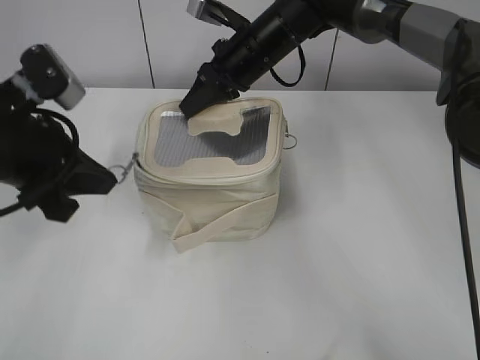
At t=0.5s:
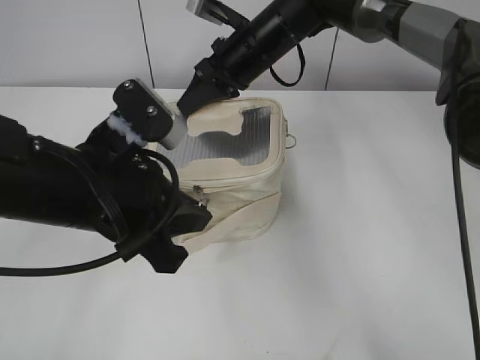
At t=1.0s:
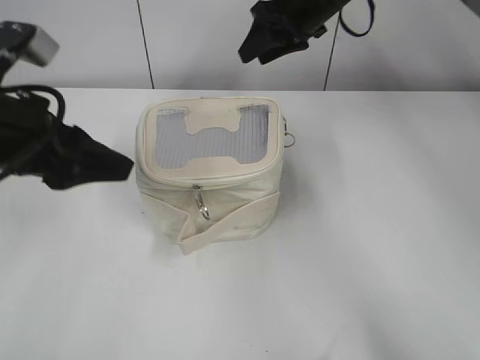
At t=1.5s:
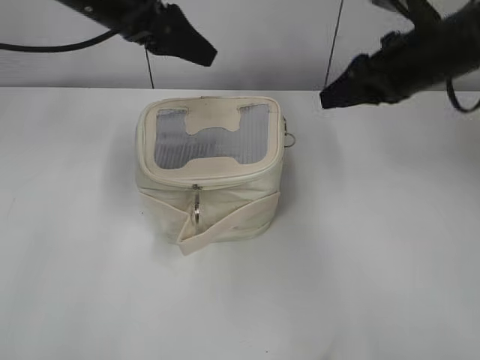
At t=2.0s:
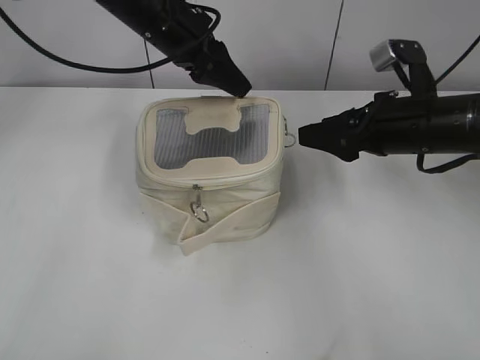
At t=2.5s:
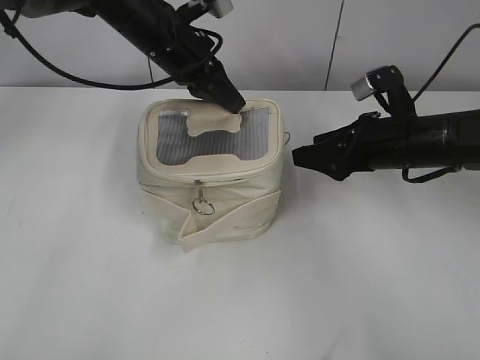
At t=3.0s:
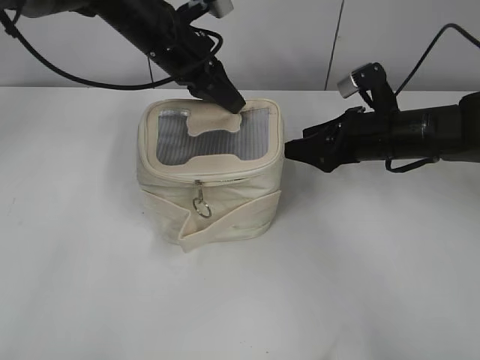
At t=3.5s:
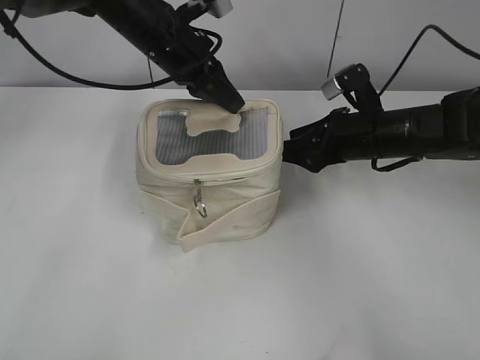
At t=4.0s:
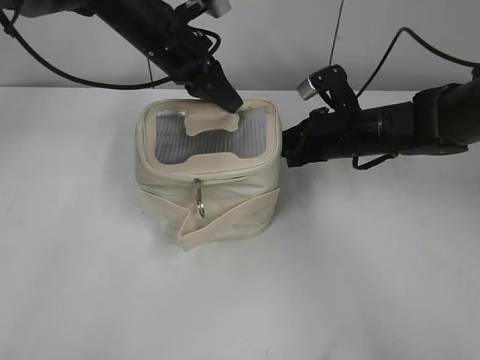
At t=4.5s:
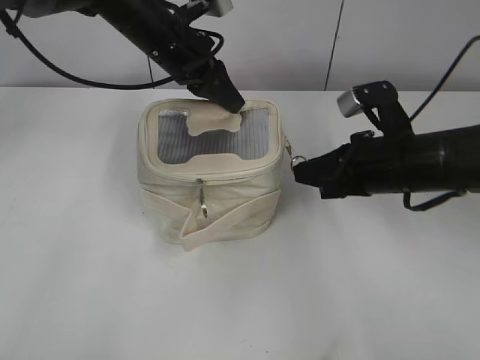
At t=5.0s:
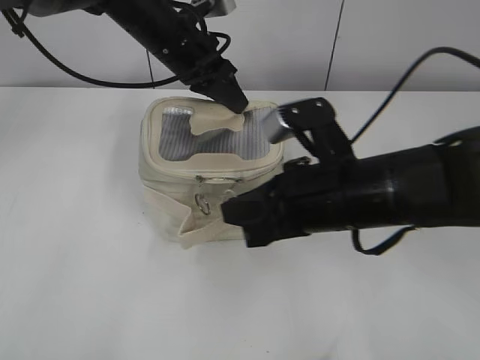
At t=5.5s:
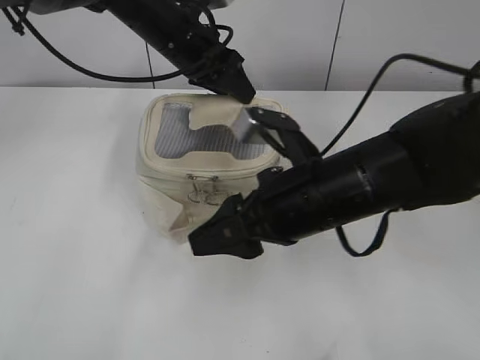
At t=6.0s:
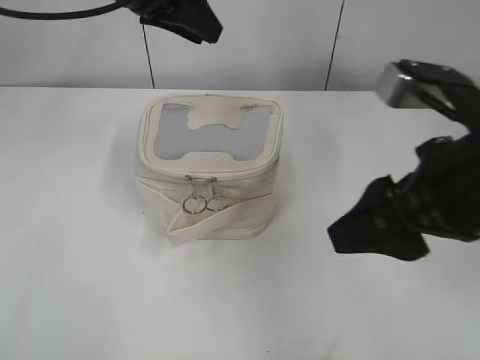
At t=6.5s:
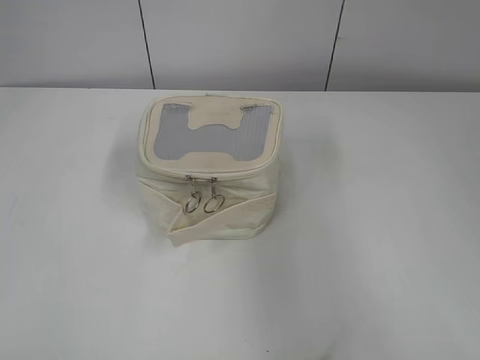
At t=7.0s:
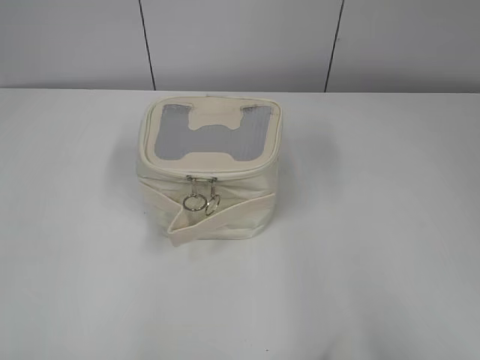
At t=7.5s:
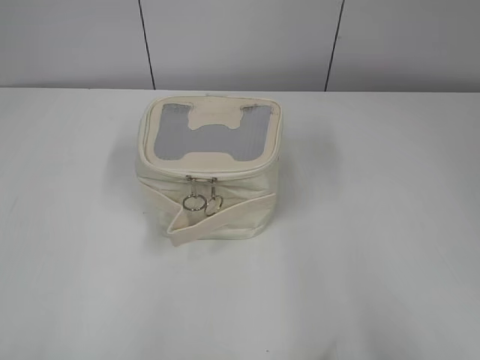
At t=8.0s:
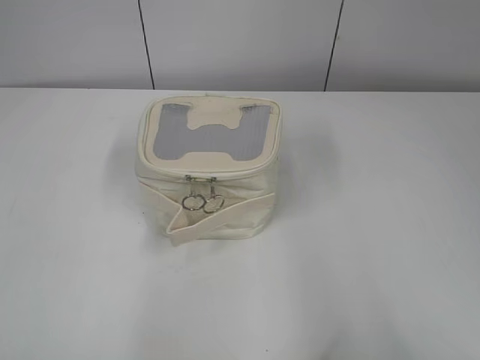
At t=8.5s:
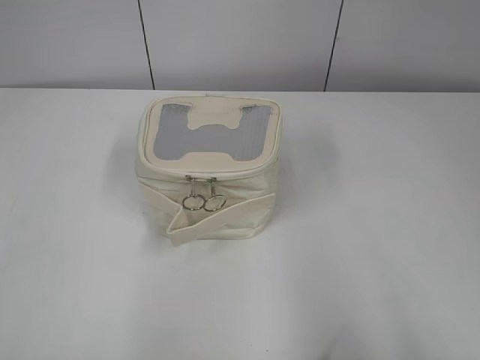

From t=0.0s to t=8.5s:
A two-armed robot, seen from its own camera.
Step, from t=1.0s to t=5.0s: Zip up the bag with your right hand.
From t=0.0s to t=2.0s: The right gripper moves to the right and backward, approximately 25 cm, and opens its fingers. The left gripper moves forward and to the right, roughly 20 cm, and opens up.
From t=2.0s to t=4.0s: The right gripper moves downward, forward and to the left, about 10 cm, and closes its fingers. The left gripper closes its fingers.
From t=4.0s to t=6.5s: The left gripper travels backward, to the left and upward by approximately 35 cm, and opens its fingers, while the right gripper goes about 35 cm backward and upward, and opens.
From t=6.5s to t=8.5s: The right gripper is displaced backward by approximately 5 cm, while the left gripper heads backward, to the left and downward, covering roughly 15 cm.

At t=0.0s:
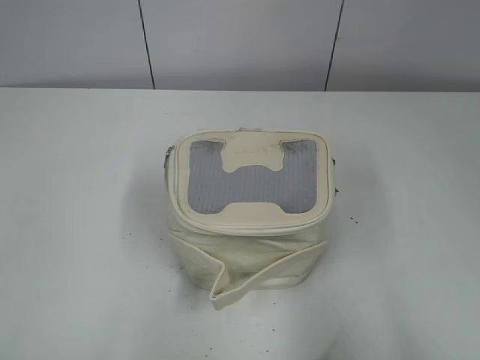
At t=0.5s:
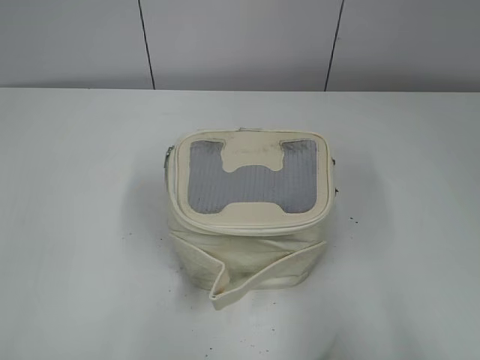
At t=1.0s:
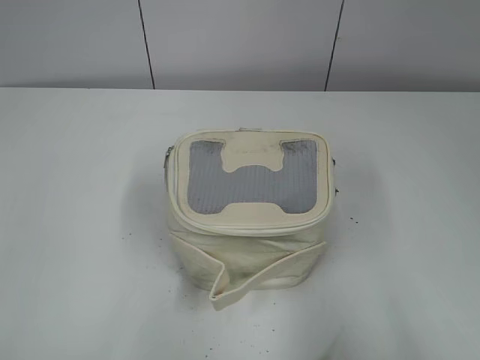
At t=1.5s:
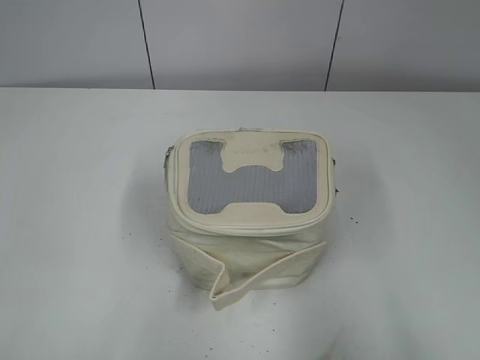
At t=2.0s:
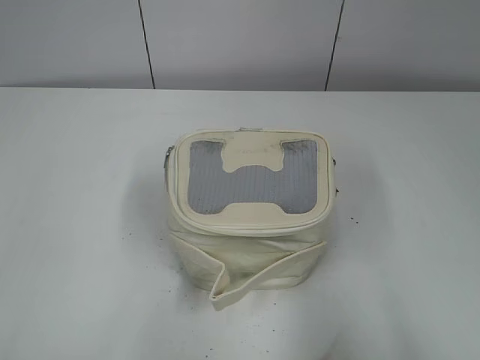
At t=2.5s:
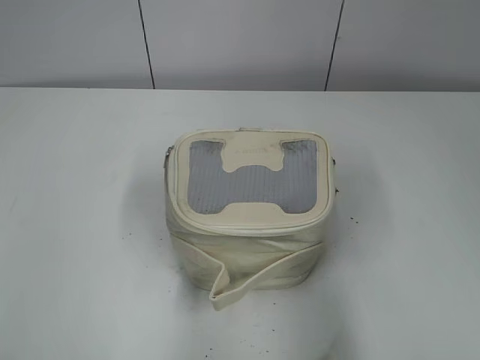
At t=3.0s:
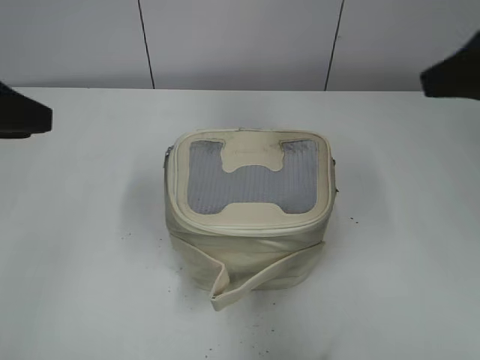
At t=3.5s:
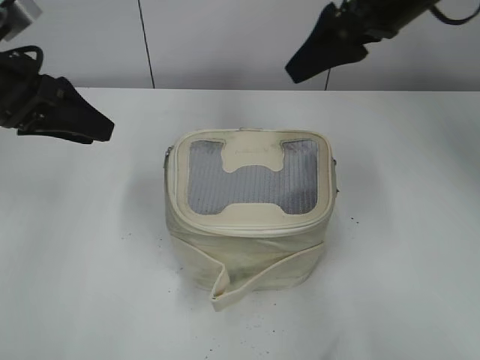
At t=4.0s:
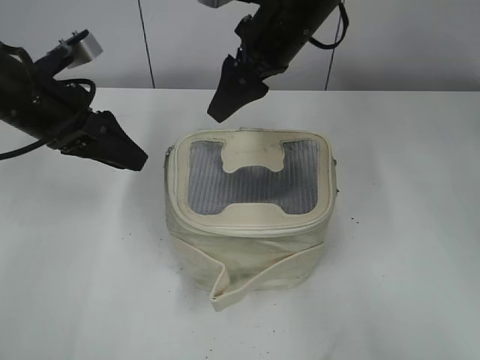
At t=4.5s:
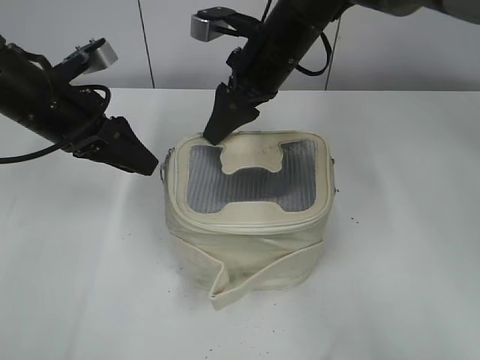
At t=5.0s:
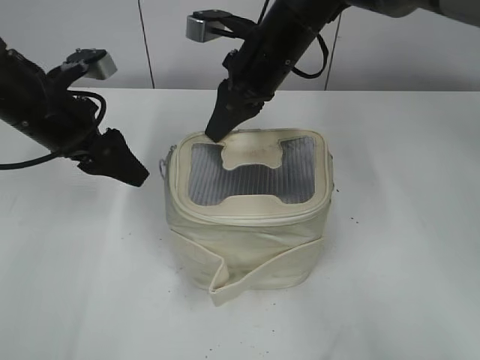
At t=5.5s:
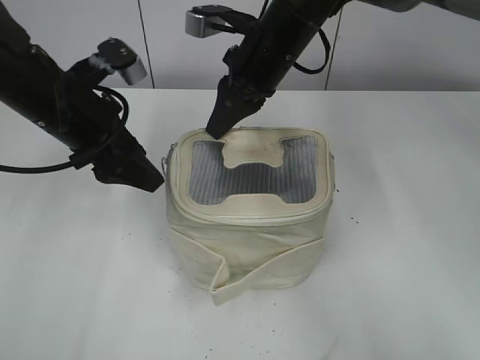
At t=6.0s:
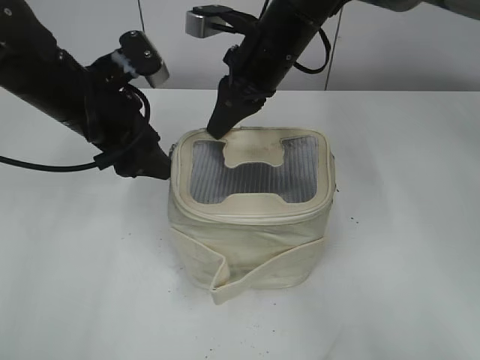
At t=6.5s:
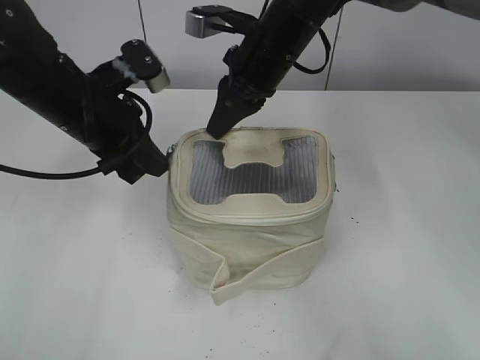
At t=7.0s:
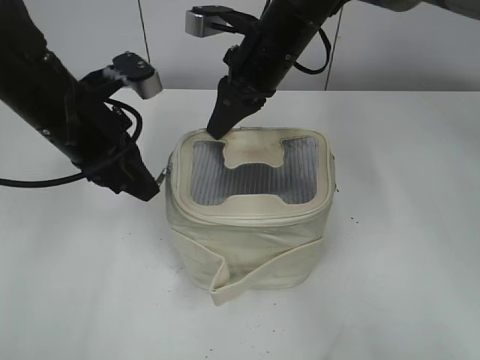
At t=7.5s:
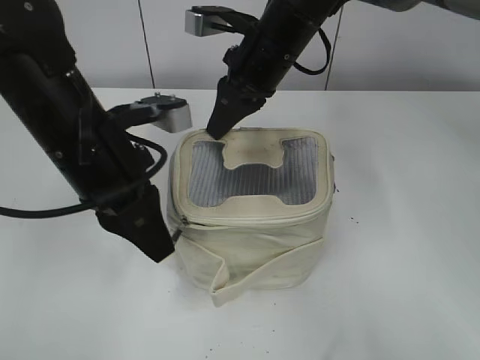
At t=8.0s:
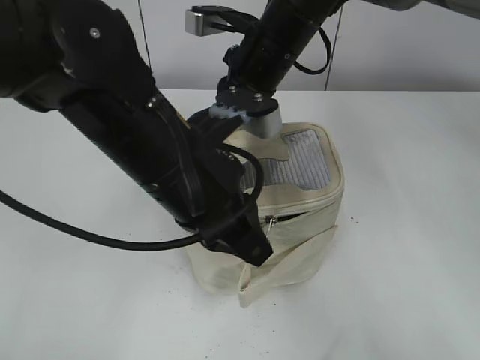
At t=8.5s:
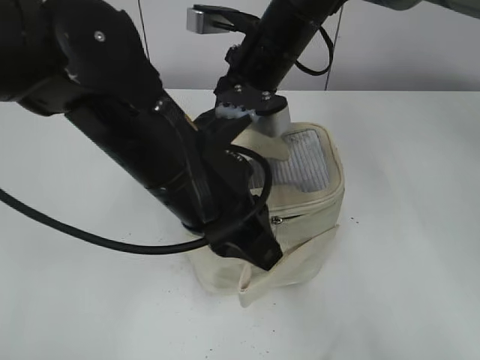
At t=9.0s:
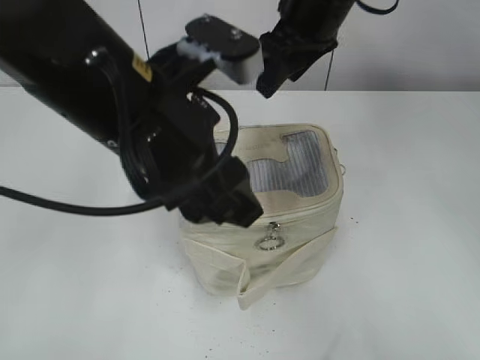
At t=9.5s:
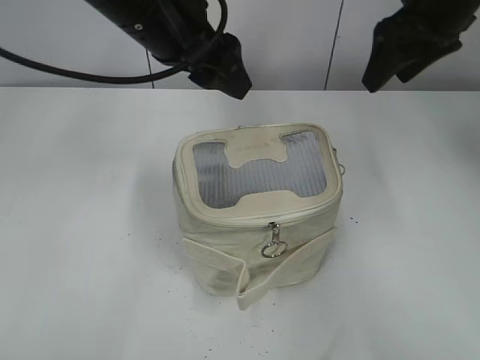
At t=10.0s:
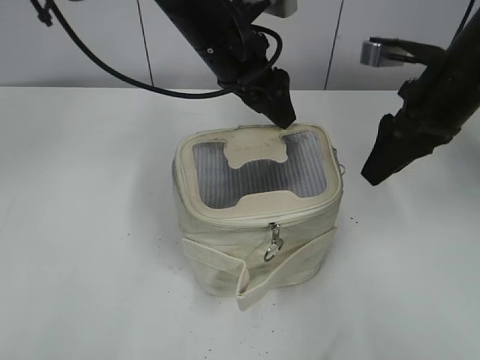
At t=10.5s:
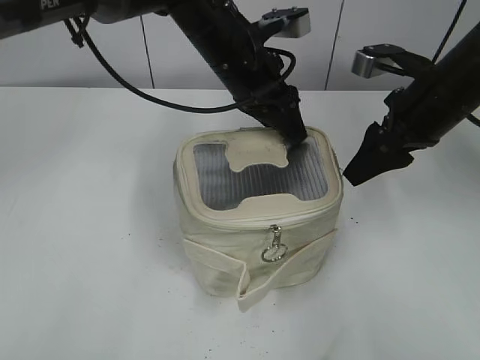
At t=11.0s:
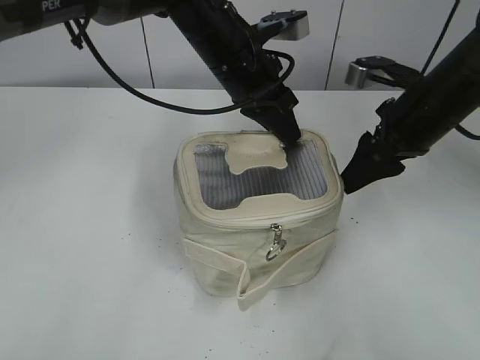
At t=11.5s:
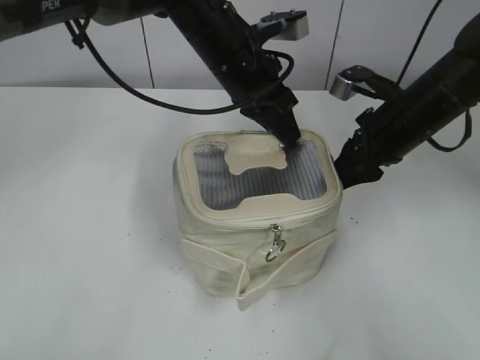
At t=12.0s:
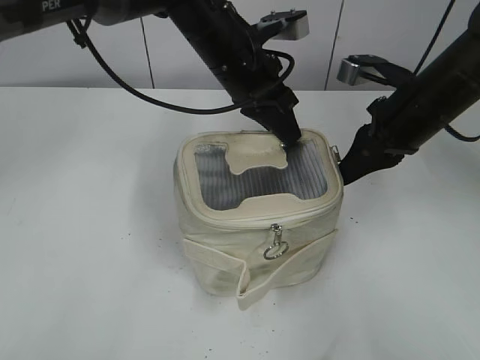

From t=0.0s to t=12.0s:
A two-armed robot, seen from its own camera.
Step, from t=0.0s to t=8.5s: Zip up the bag with your left hand.
From t=2.0s to t=4.0s: The right gripper goes some 50 cm forward and to the left. Meanwhile the left gripper is displaced forward by approximately 30 cm.
From t=4.0s to t=6.0s: The right gripper closes up; the left gripper shifts roughly 5 cm to the right.
From t=6.0s to t=8.0s: The left gripper moves backward and to the right, approximately 15 cm, and closes up.
From t=8.0s to t=10.0s: The right gripper moves to the right, roughly 15 cm, and opens, while the left gripper travels forward by some 15 cm, and opens up.
From t=10.0s to t=12.0s: The right gripper shifts some 5 cm downward, and closes. The left gripper closes its fingers.

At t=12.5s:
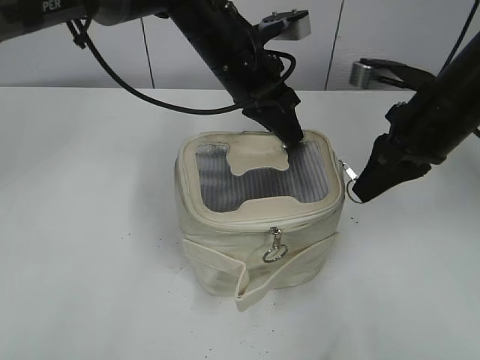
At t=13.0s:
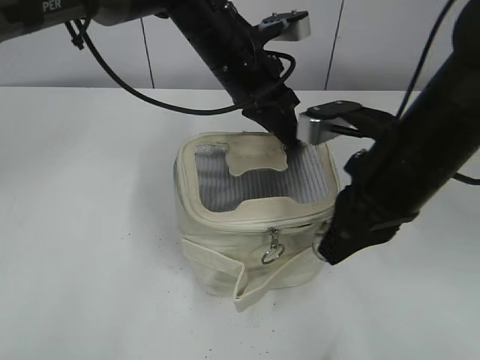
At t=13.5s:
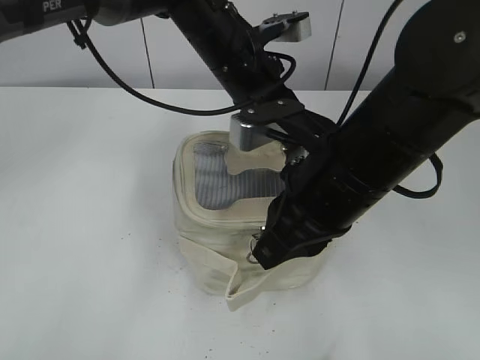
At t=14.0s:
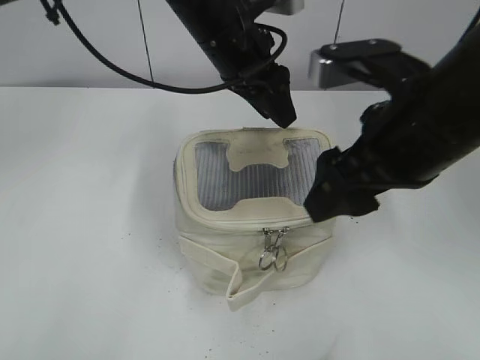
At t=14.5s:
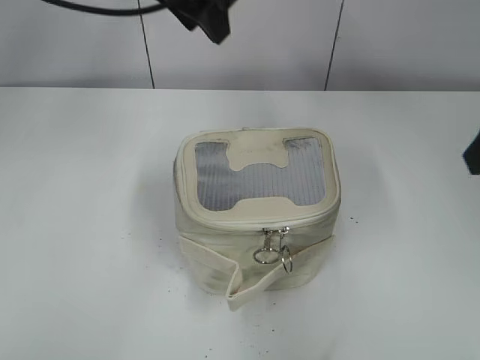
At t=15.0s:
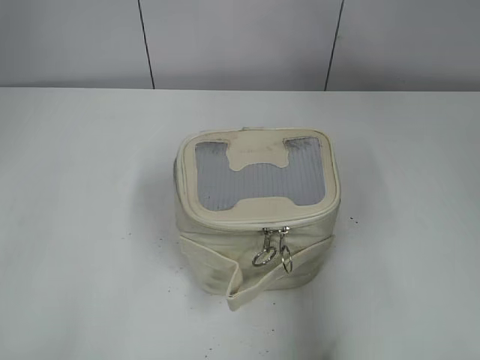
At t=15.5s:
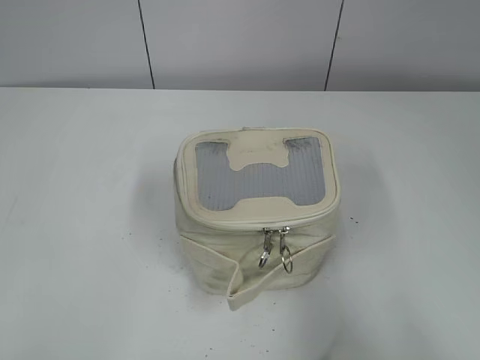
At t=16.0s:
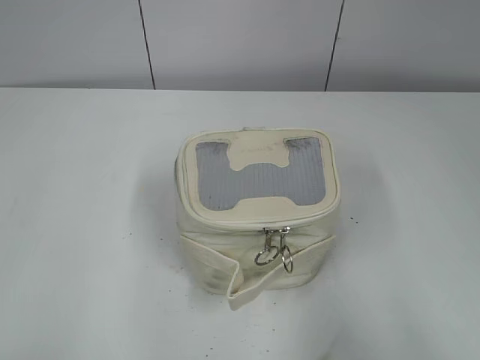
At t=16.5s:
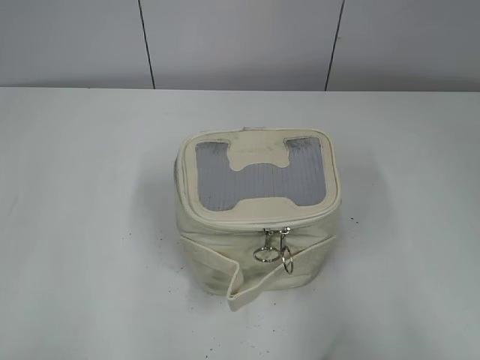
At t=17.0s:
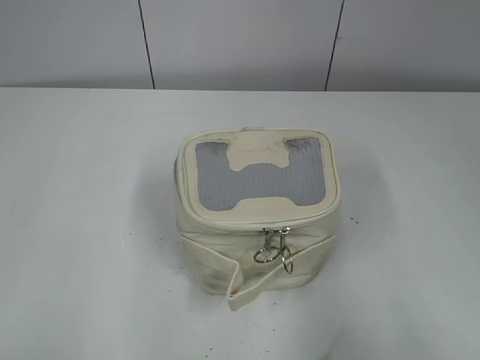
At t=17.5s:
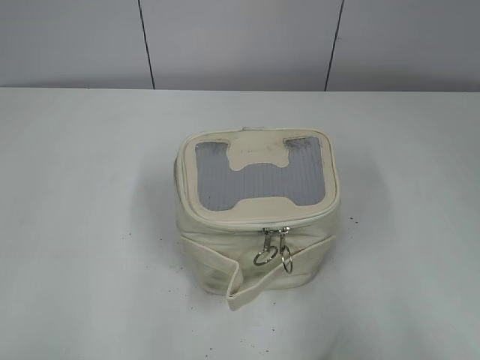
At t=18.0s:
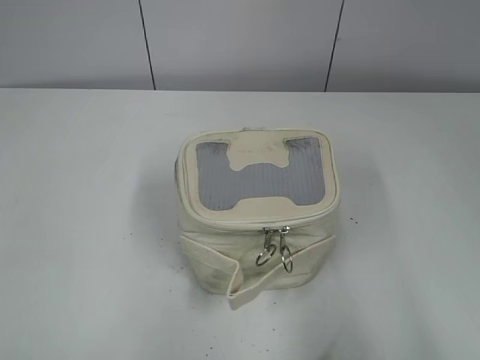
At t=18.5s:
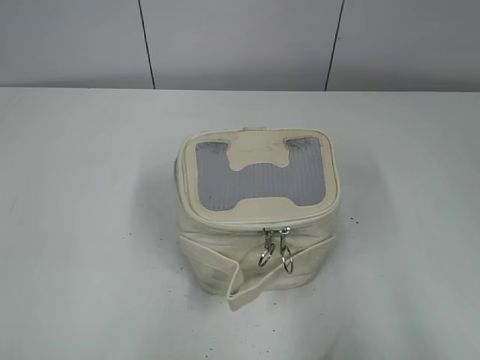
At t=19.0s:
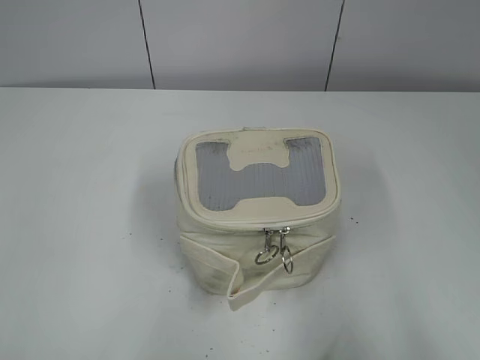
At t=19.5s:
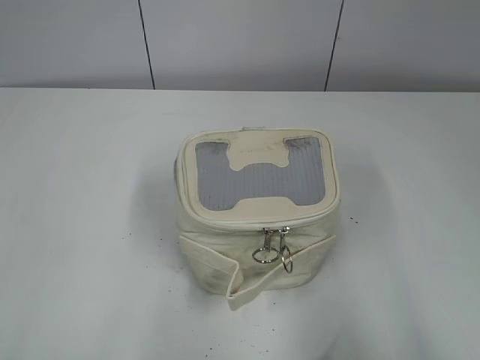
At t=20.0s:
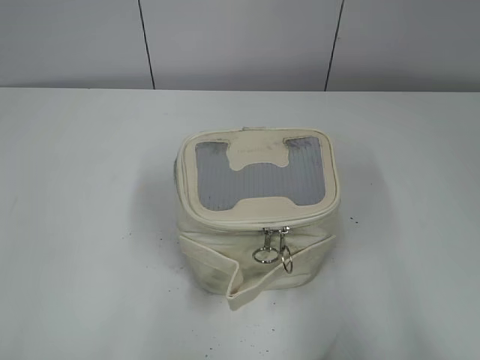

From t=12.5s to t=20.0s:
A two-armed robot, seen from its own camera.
From t=12.5s to t=14.5s: The left gripper heads upward and to the left, covering some 15 cm, and opens up, while the right gripper goes roughly 15 cm upward and backward, reaches roughly 10 cm to the left, then returns, and opens.
From t=14.5s to t=16.5s: The left gripper moves backward and to the left, roughly 40 cm, while the right gripper heads backward, covering approximately 20 cm.
